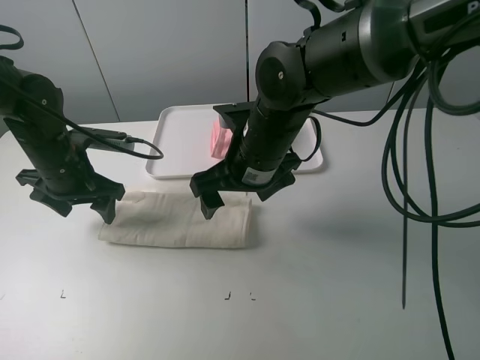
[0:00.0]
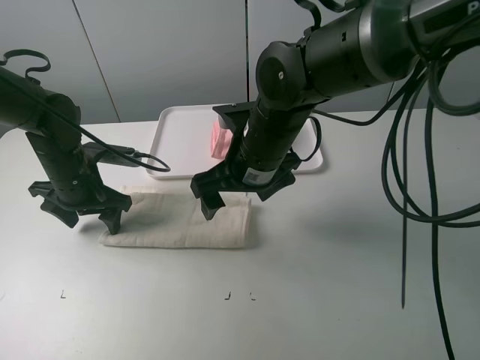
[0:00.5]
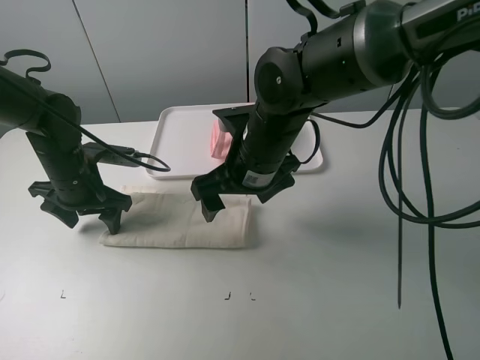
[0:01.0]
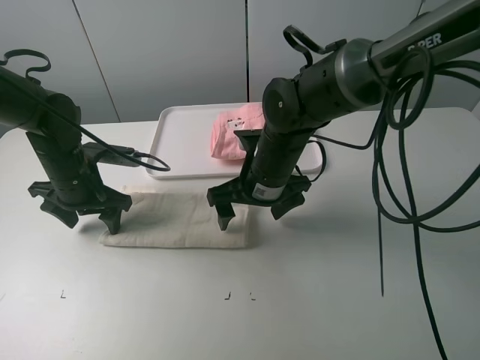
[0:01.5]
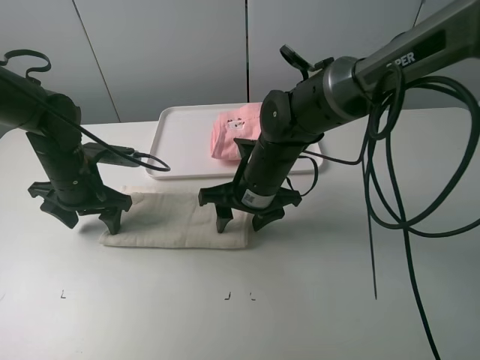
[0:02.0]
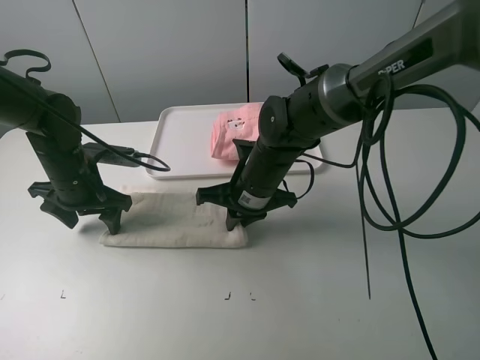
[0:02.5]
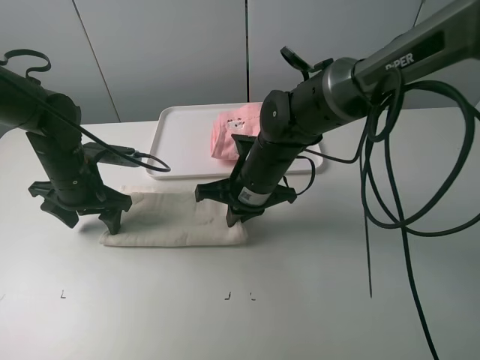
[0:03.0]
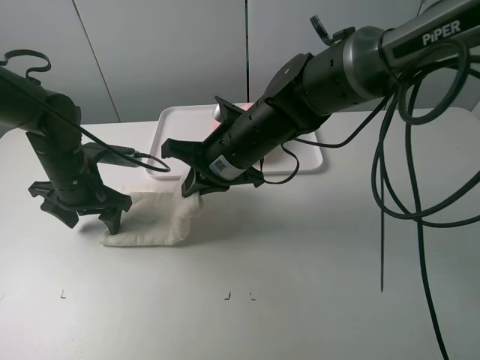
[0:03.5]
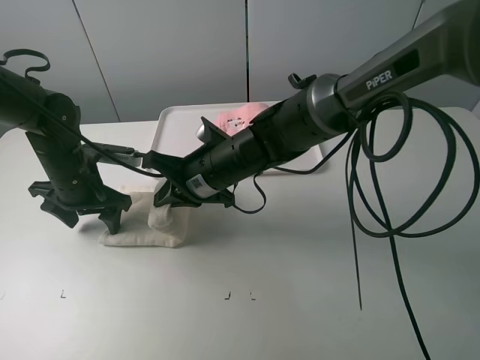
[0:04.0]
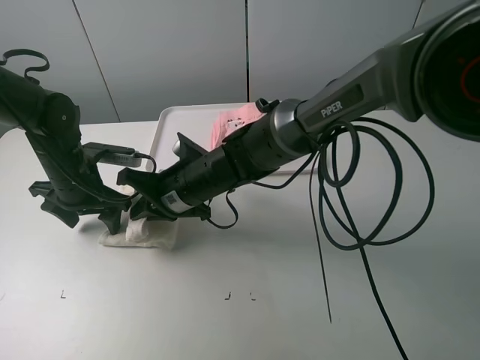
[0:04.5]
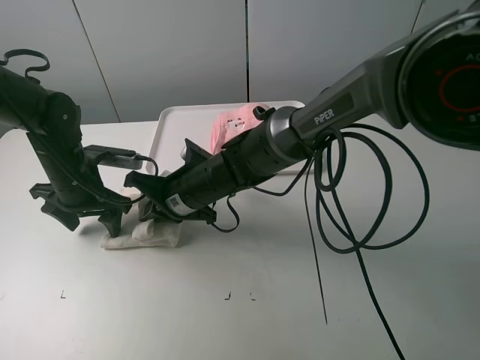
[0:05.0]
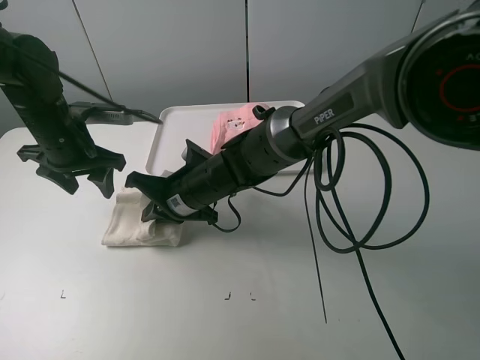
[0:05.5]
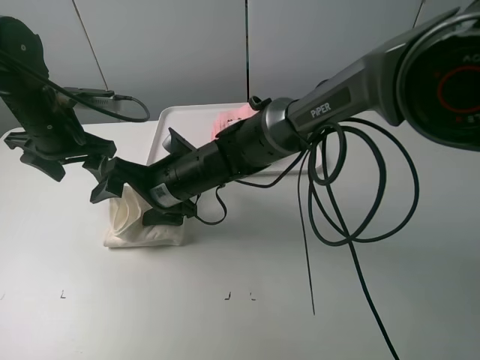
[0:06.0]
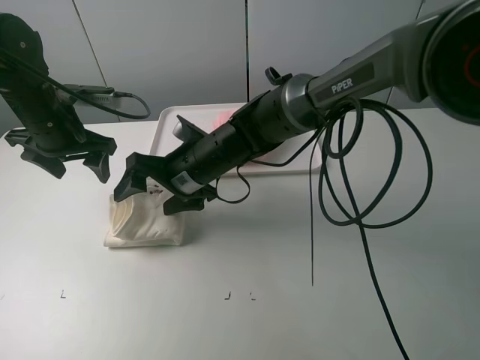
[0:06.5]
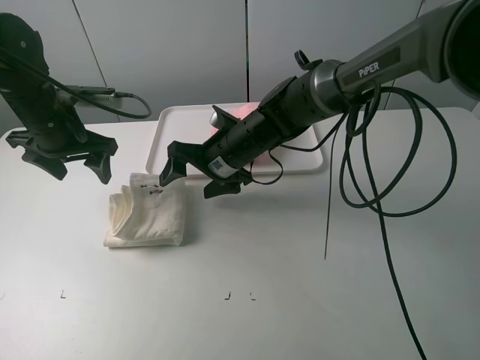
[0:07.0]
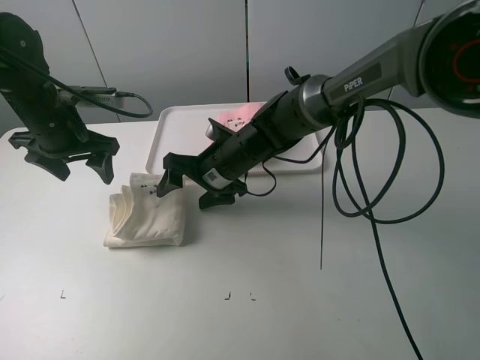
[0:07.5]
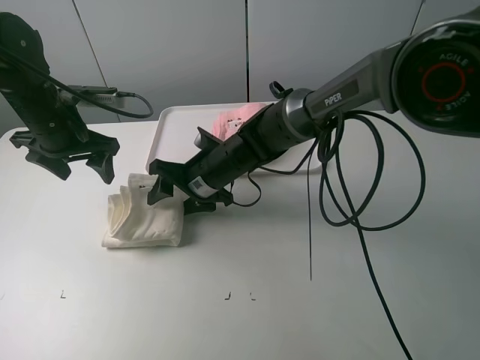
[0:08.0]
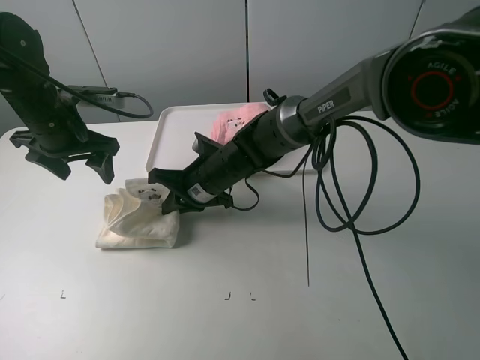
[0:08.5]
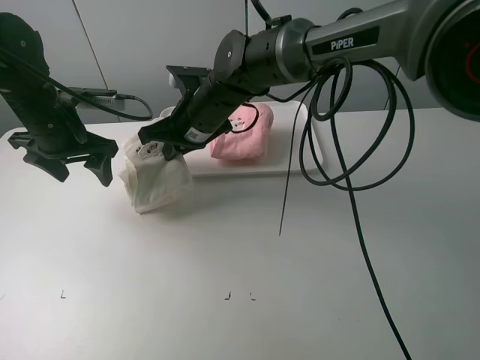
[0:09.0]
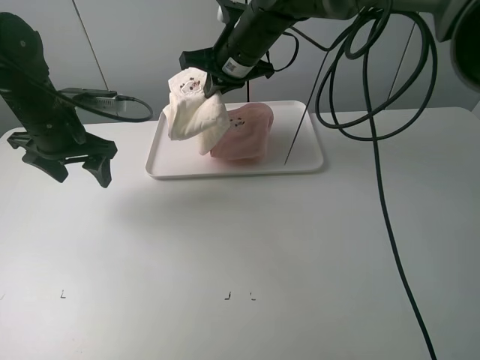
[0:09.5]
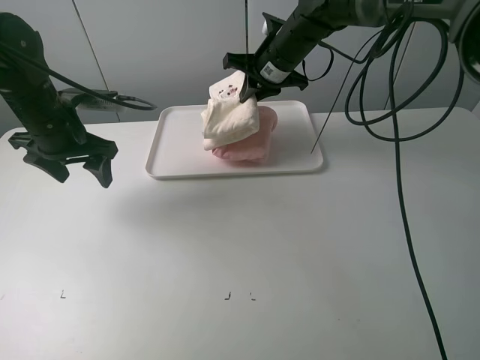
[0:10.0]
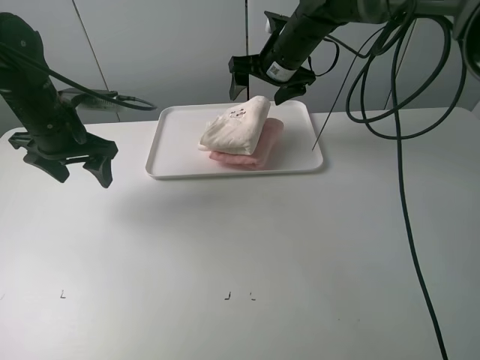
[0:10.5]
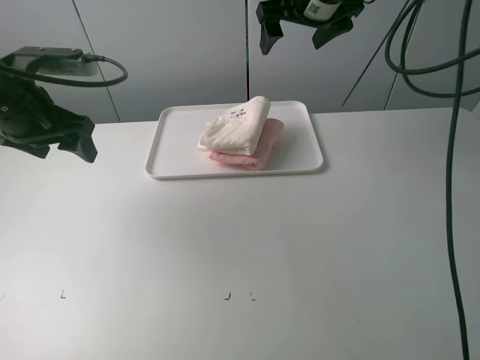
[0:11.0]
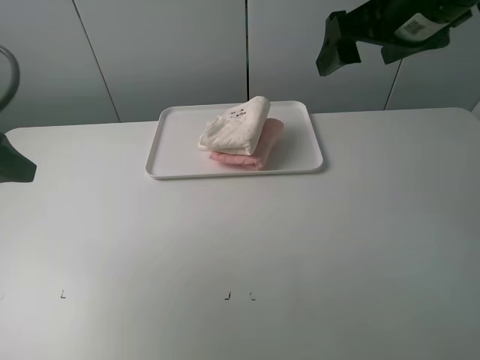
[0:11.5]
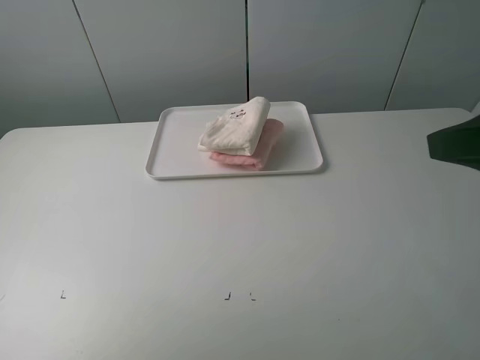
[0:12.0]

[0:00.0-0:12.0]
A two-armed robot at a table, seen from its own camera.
Task of the whole recording: fold one of the towels by two grippers and place it on the tray,then fold another towel by two grippers and place it on the folded towel.
Step, 0:01.0 to 0:02.5: Grasp the white towel with the right gripper.
Step, 0:03.0 to 0:06.0: Fold the white towel from right to left with right gripper.
Step, 0:06.5 to 0:08.0: Grasp the white towel with the right gripper.
Step, 0:08.5 to 0:10.5: Place the white towel on the pink towel with the right gripper.
0:00.0 to 0:02.0: The right gripper moves downward, approximately 5 cm.
0:02.0 to 0:04.0: The right gripper moves to the left, some 5 cm, and closes up.
0:04.0 to 0:06.0: The right gripper moves about 5 cm, and opens; the left gripper goes some 10 cm upward.
0:06.0 to 0:08.0: The right gripper moves about 5 cm, and closes.
0:08.0 to 0:10.0: The right gripper travels forward, upward and to the right by some 20 cm, and closes.
0:10.0 to 0:12.0: The right gripper goes about 40 cm backward and to the right, and opens. Meanwhile the left gripper travels backward and upward by some 30 cm.

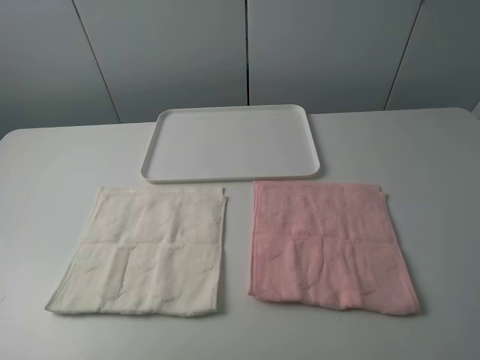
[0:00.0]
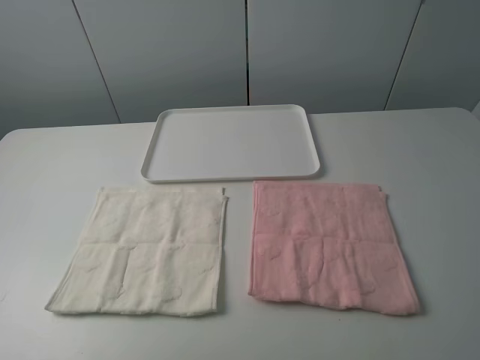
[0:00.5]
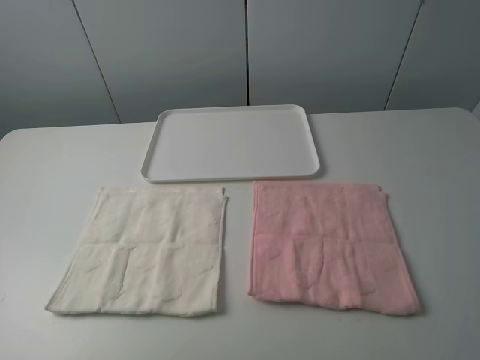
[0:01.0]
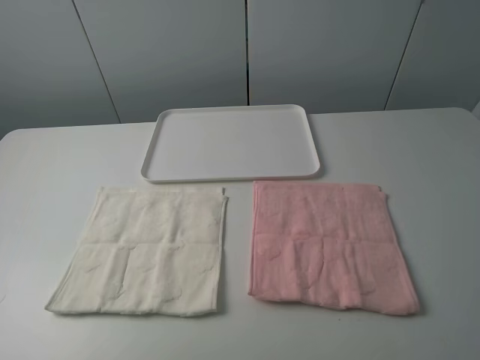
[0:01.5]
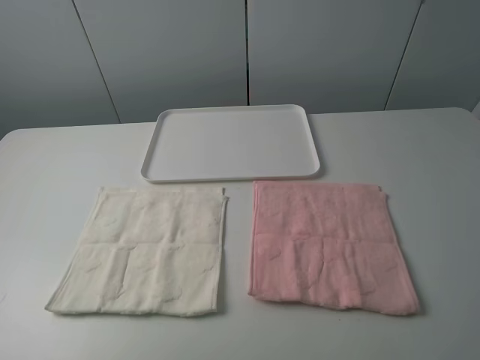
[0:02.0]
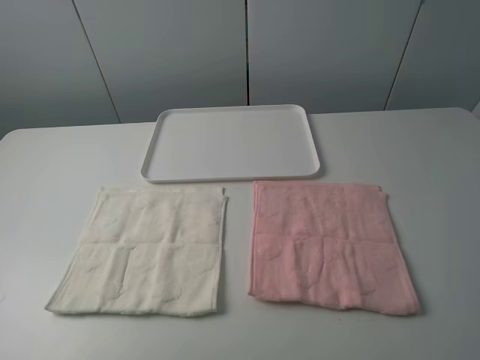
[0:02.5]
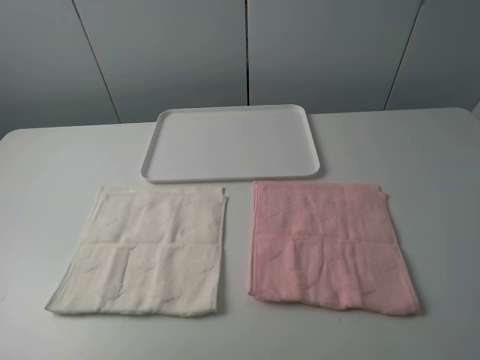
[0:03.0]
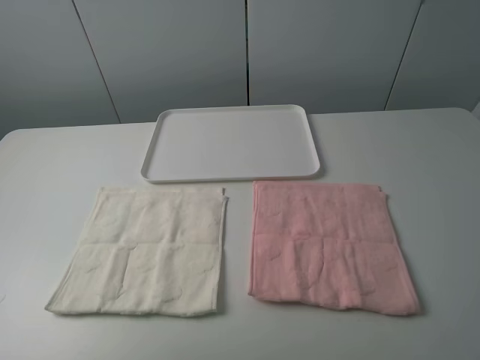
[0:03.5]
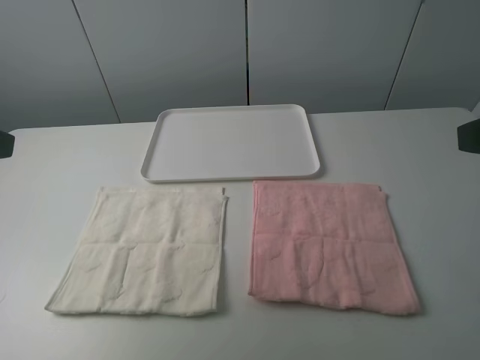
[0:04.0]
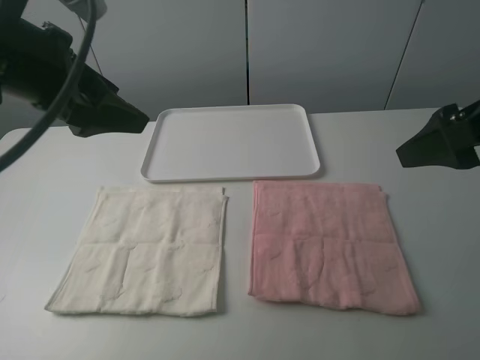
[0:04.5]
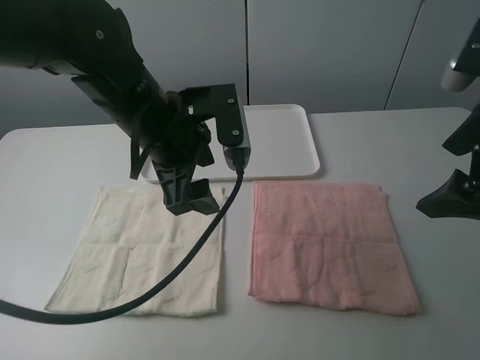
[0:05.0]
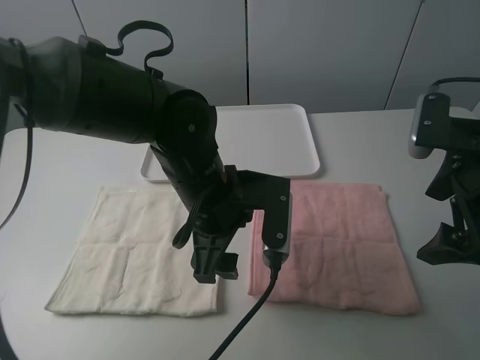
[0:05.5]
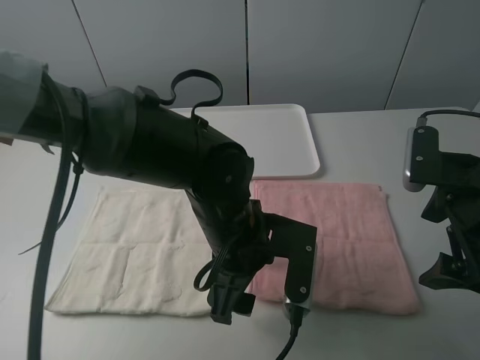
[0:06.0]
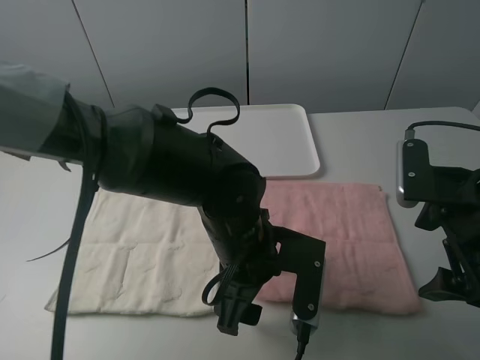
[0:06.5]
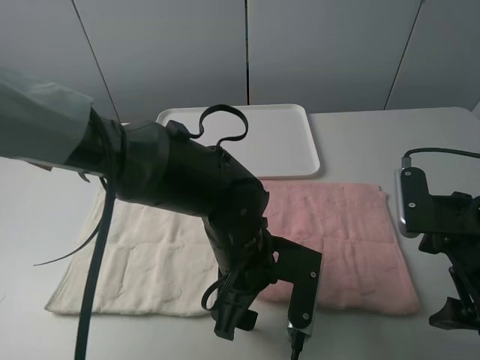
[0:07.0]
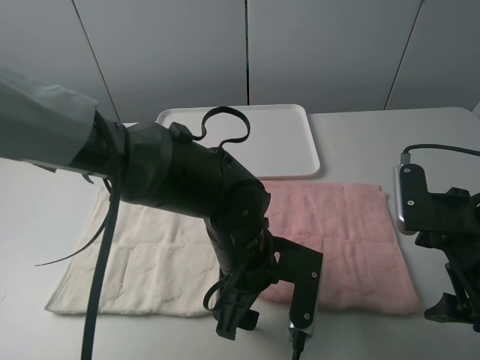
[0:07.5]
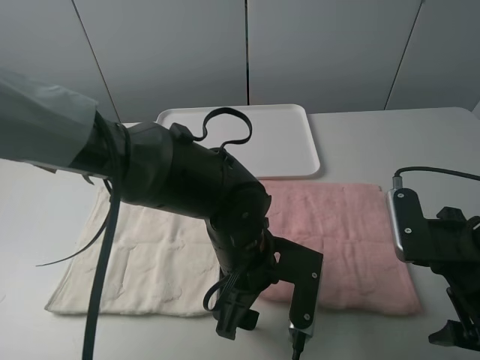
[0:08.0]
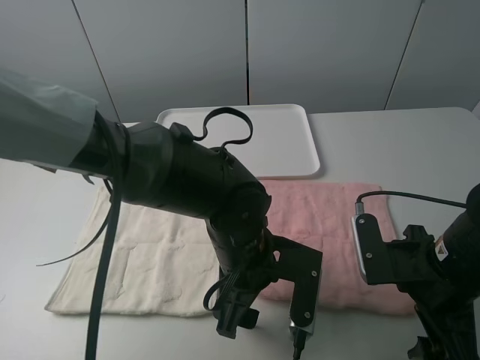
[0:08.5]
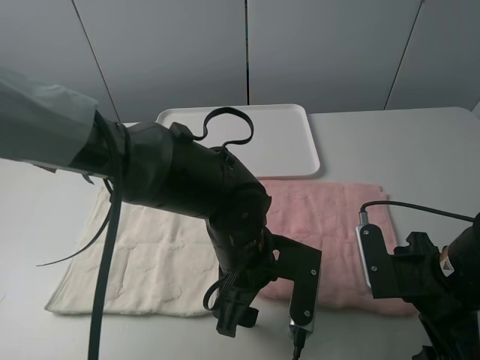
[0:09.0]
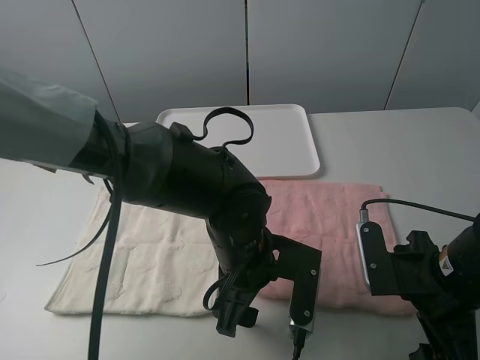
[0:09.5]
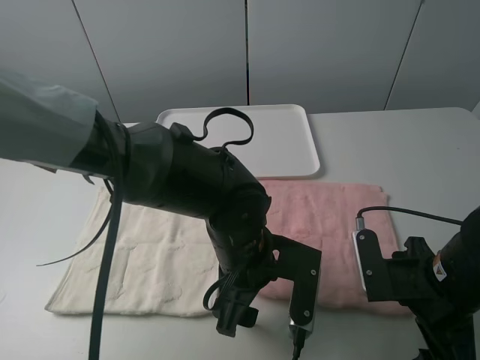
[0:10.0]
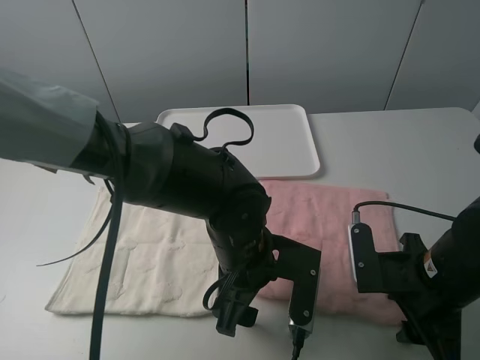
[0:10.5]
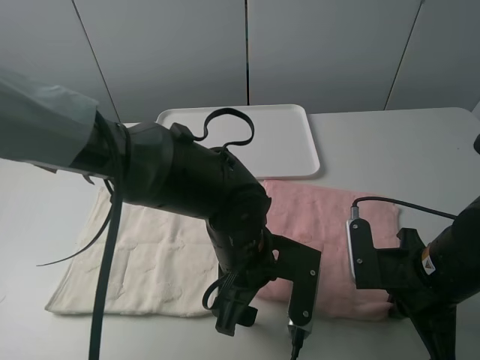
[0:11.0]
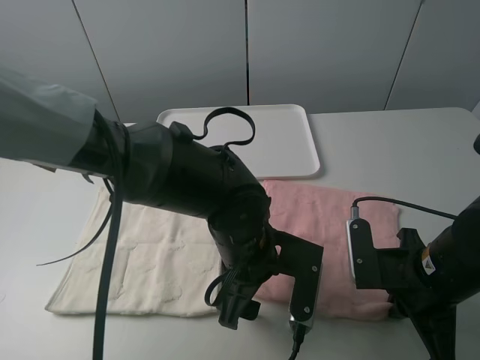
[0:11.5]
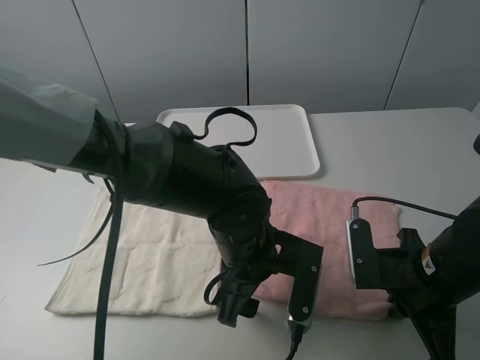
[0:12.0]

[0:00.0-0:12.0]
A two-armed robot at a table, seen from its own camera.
Task of the whole recording: fold one of the towels by two grippers and place it on the tray,then fold another towel by two grippers and place it on the folded towel.
0:00.0 to 0:02.0: The two grippers keep their place.
0:04.0 to 0:06.0: The left gripper goes roughly 35 cm to the right and downward. Meanwhile the right gripper goes roughly 15 cm downward and forward.
0:06.0 to 0:08.0: The right gripper shifts by roughly 5 cm.
0:08.0 to 0:10.0: The right gripper shifts some 5 cm downward.
0:10.0 to 0:12.0: The right gripper closes.

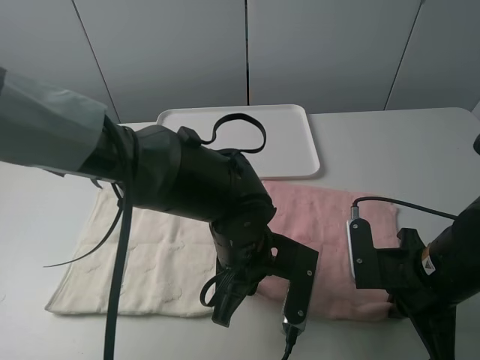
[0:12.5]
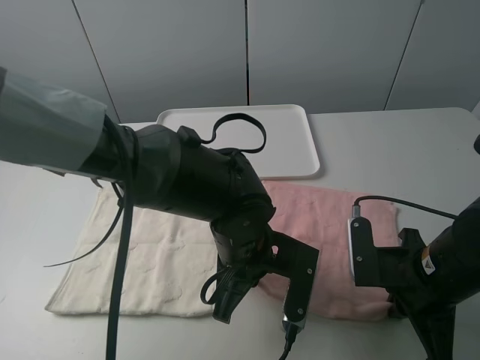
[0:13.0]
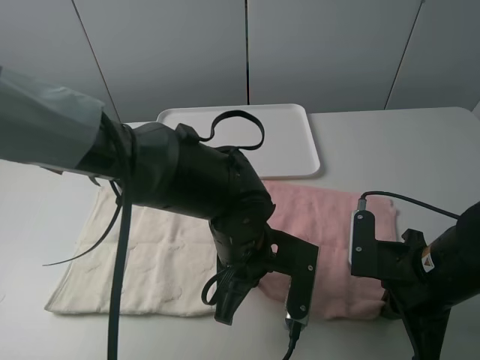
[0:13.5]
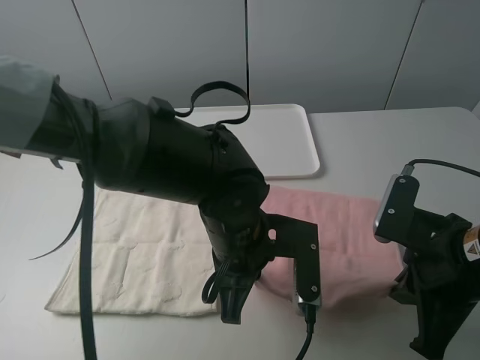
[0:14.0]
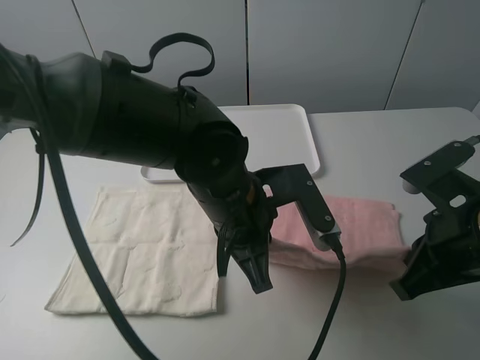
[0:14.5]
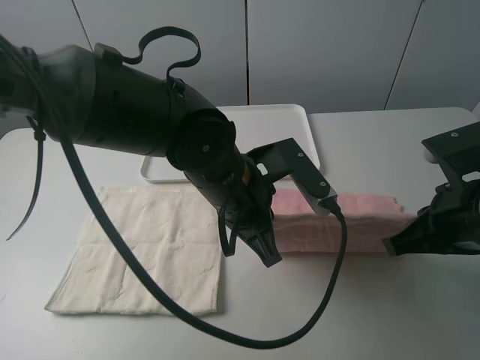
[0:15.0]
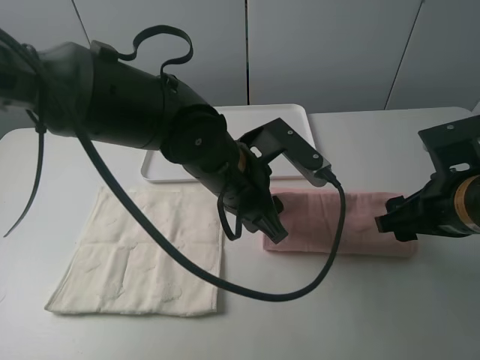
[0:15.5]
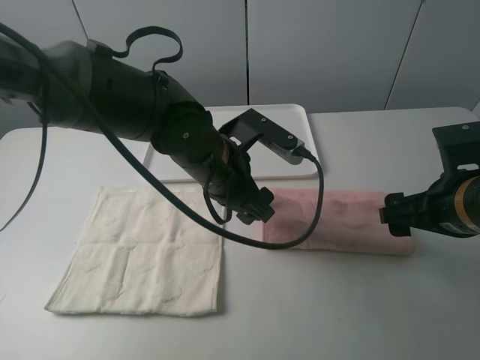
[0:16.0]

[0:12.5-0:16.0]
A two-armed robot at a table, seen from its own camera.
Task of the whole recording: fold one of the towels by two grippers and place it on the tray,then fold another towel by two grippers and place it on the folded towel.
Step, 0:13.0 to 0:15.5: Fold the pink towel upwards with the left gripper.
0:12.5 to 0:14.5: Both grippers move upward, approximately 5 cm.
0:14.5 to 0:16.0: The left gripper is displaced forward by approximately 5 cm, and opens its fingers; the right gripper opens up.
